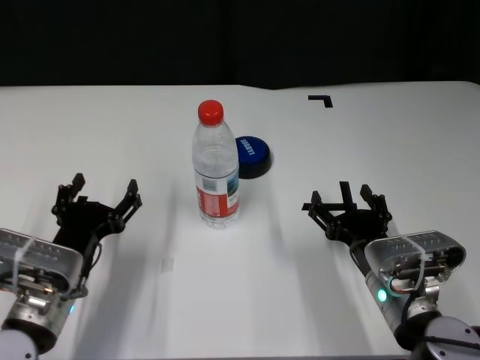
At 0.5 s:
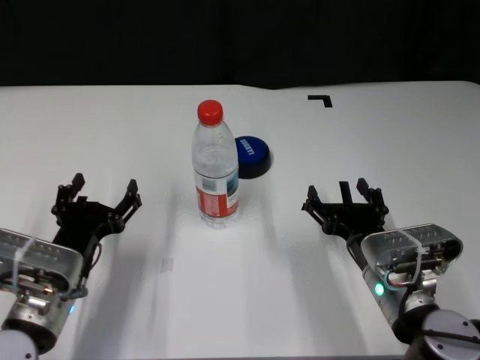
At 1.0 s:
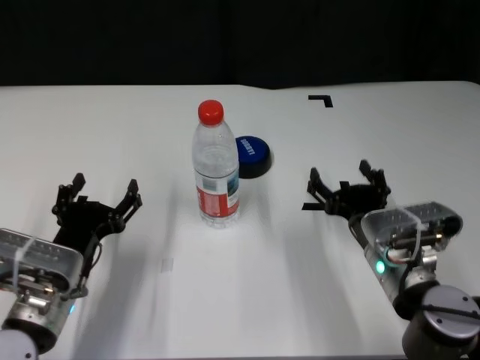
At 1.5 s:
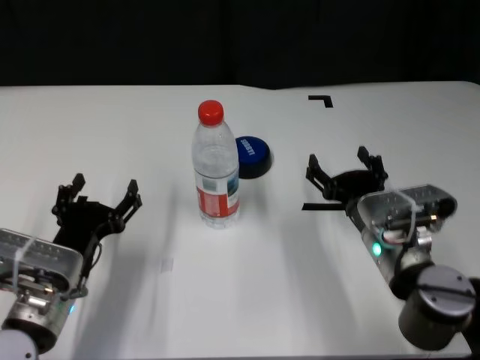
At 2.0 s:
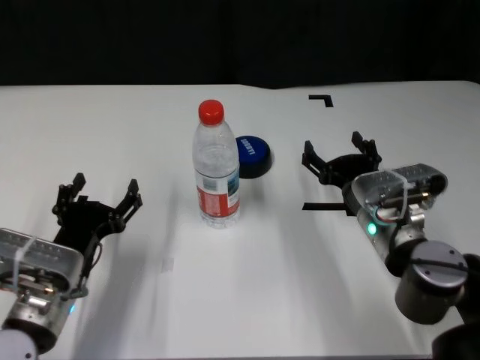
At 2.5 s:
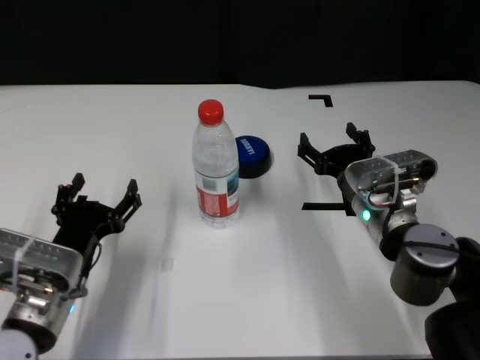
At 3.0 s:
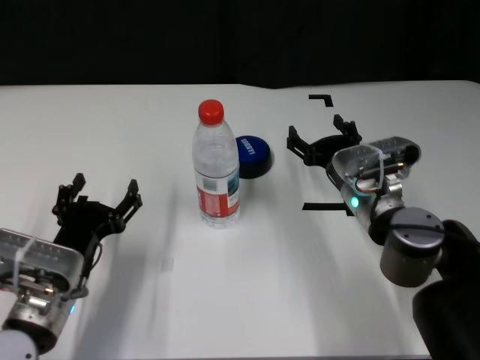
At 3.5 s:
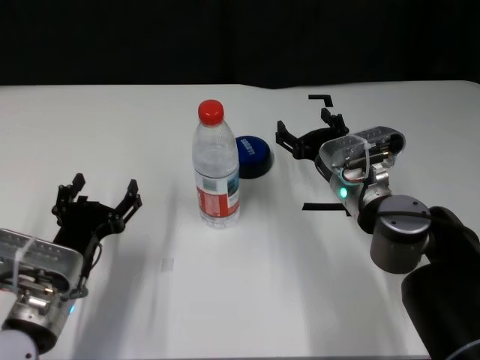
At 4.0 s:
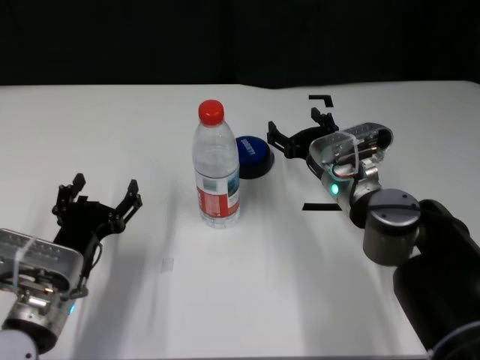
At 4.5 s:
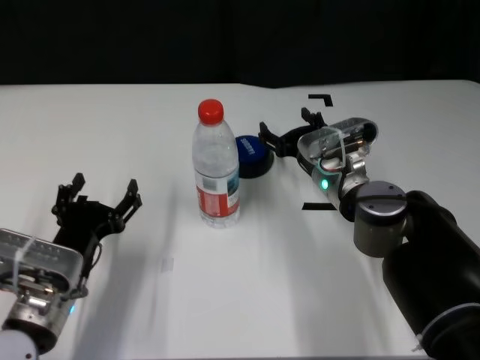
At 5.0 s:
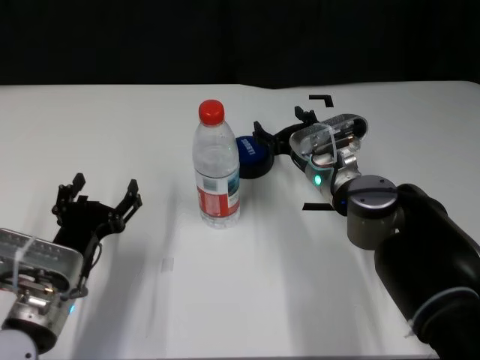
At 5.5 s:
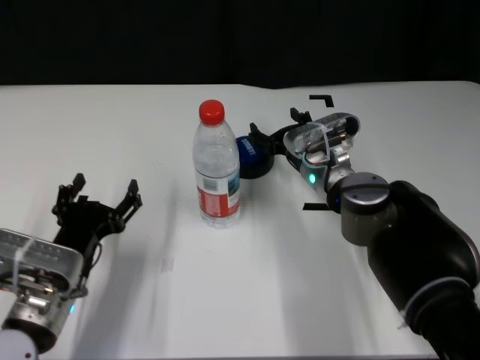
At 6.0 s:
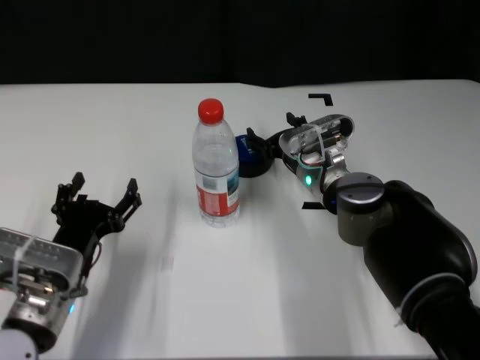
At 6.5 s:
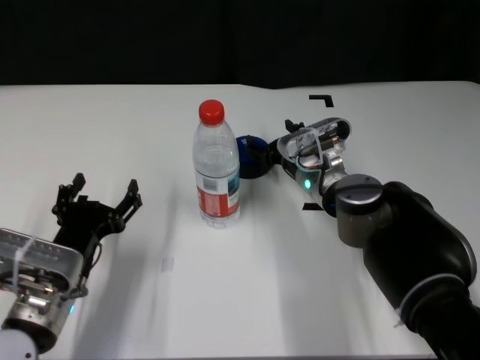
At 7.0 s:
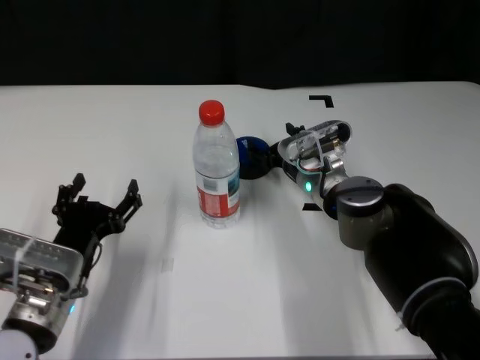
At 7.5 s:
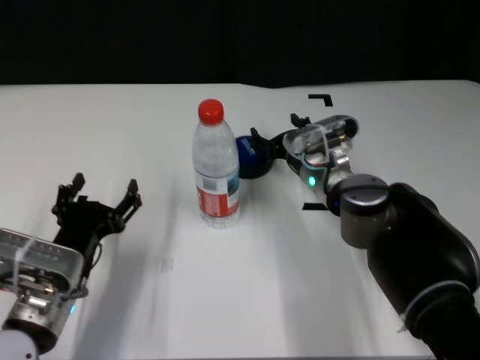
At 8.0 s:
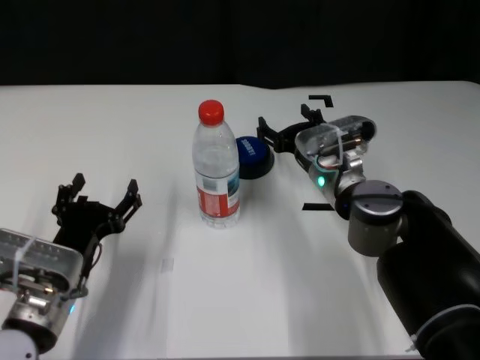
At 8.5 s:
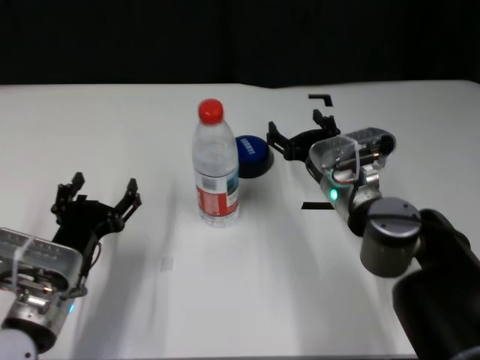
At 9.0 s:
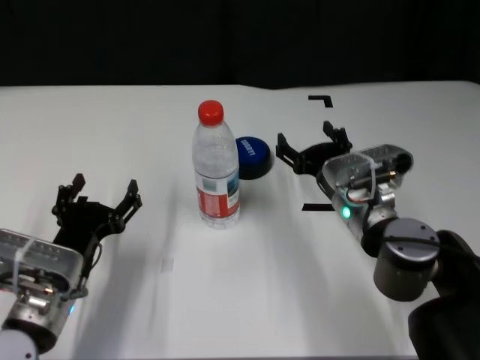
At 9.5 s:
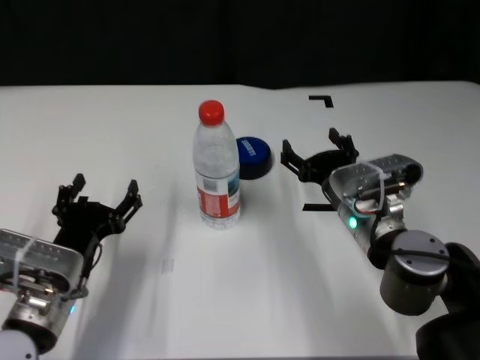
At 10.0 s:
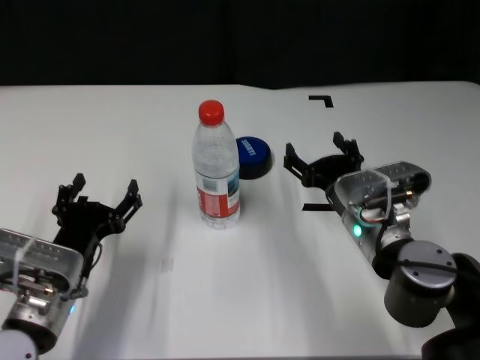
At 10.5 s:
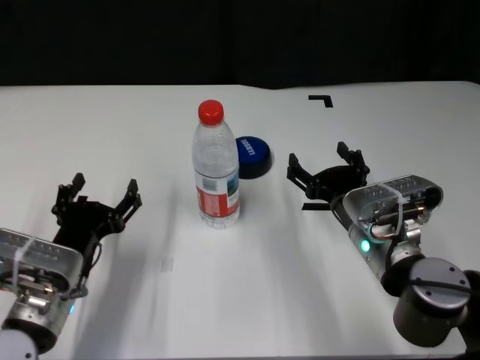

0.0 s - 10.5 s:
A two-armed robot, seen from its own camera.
Task of the whole recording: after avoiding the water bottle on the table, press the button.
Step, 0.0 s - 7.5 s: Press the button blocked by the bottle with right gripper.
